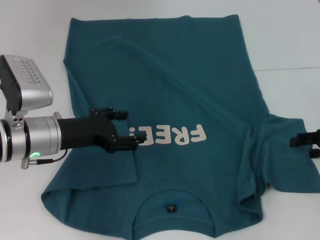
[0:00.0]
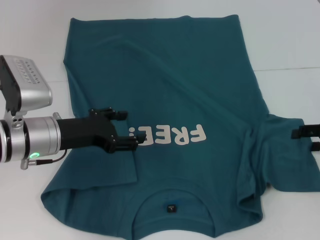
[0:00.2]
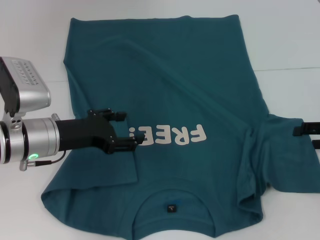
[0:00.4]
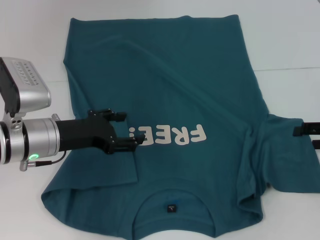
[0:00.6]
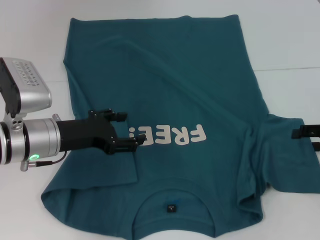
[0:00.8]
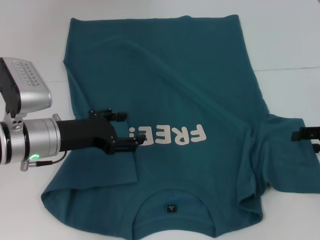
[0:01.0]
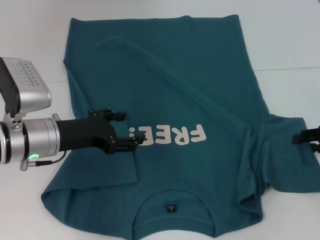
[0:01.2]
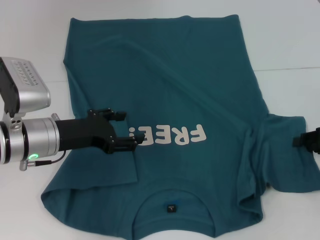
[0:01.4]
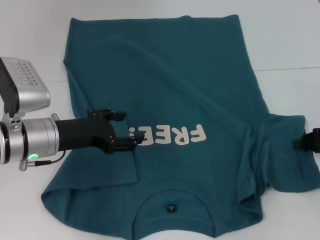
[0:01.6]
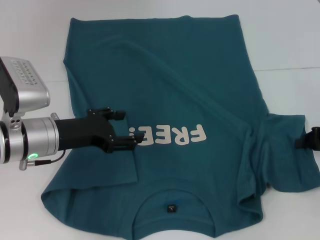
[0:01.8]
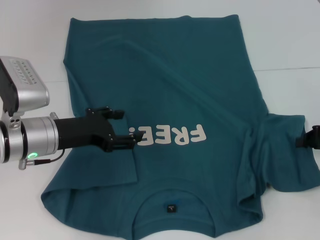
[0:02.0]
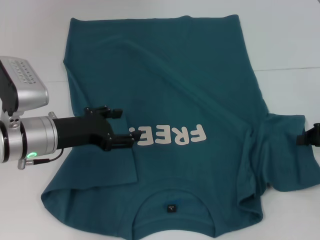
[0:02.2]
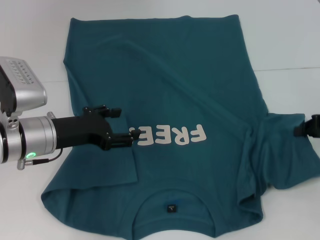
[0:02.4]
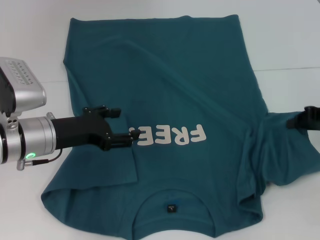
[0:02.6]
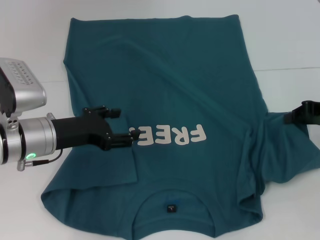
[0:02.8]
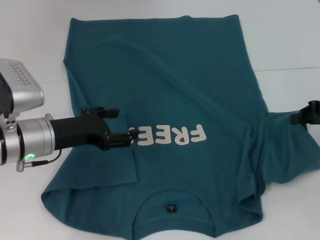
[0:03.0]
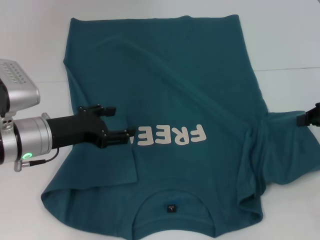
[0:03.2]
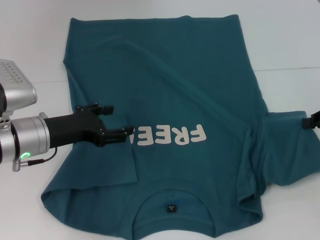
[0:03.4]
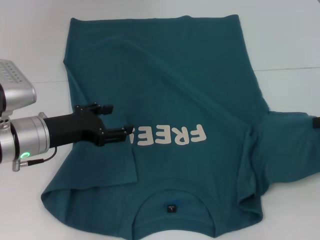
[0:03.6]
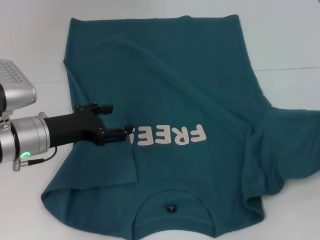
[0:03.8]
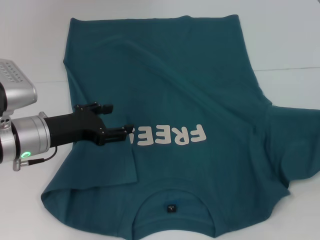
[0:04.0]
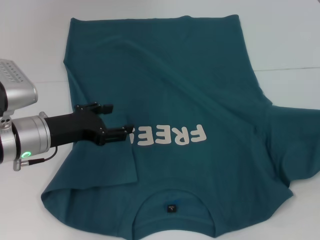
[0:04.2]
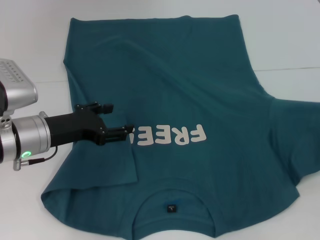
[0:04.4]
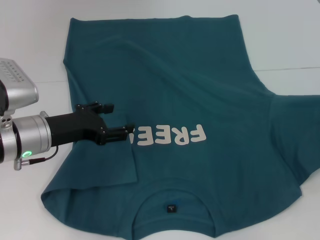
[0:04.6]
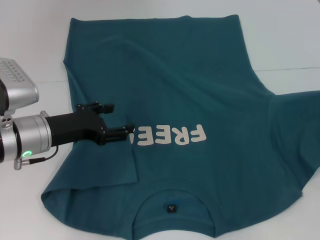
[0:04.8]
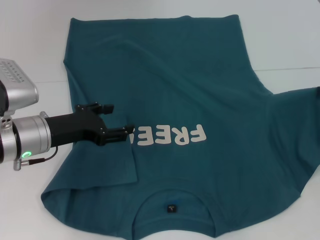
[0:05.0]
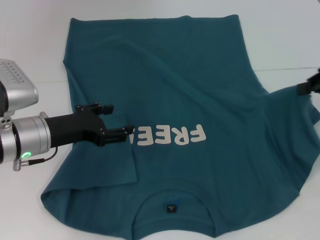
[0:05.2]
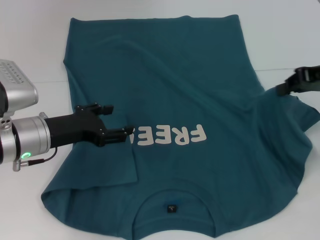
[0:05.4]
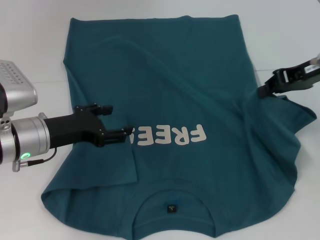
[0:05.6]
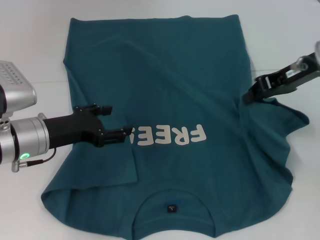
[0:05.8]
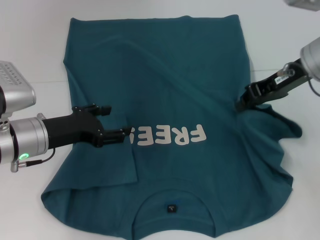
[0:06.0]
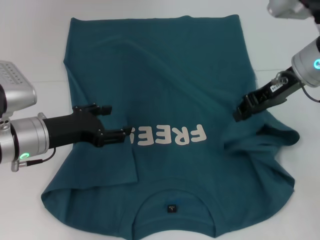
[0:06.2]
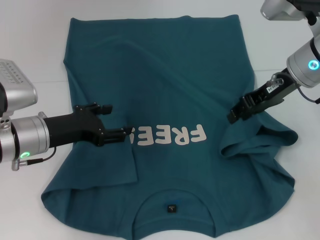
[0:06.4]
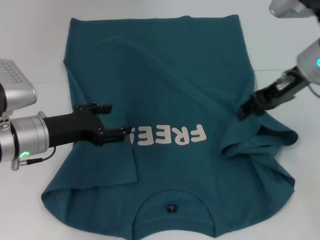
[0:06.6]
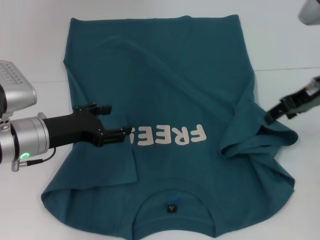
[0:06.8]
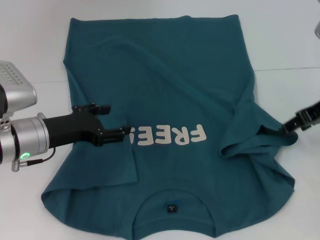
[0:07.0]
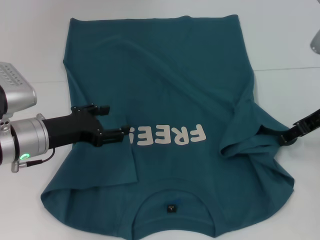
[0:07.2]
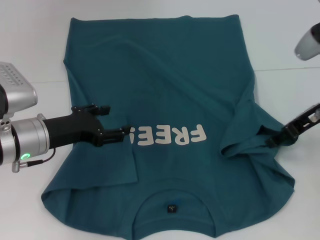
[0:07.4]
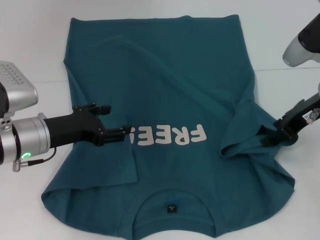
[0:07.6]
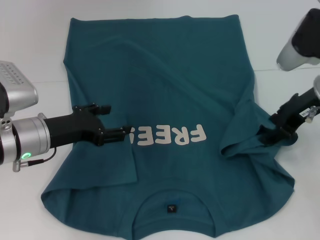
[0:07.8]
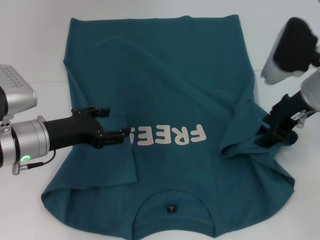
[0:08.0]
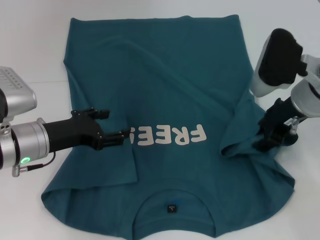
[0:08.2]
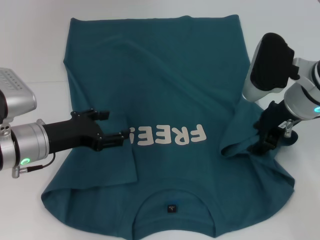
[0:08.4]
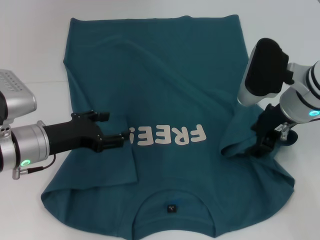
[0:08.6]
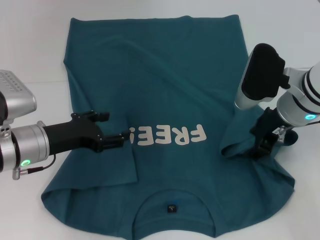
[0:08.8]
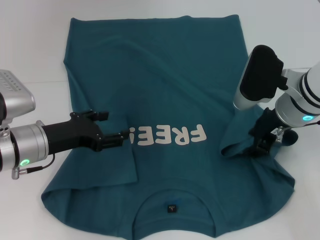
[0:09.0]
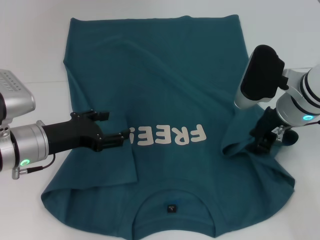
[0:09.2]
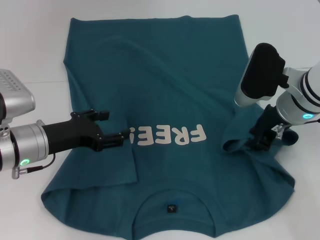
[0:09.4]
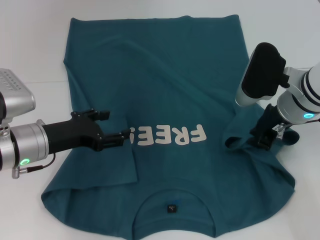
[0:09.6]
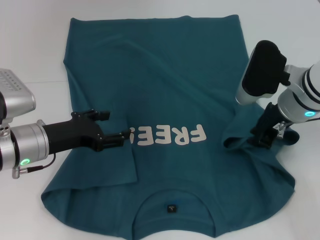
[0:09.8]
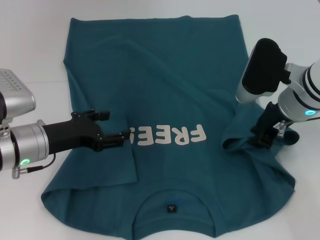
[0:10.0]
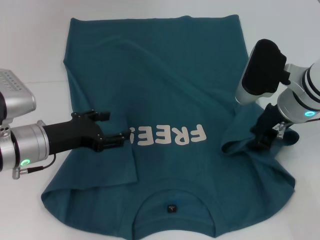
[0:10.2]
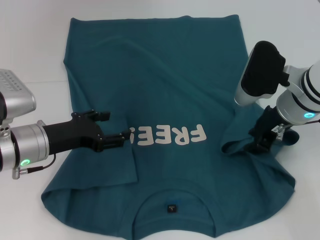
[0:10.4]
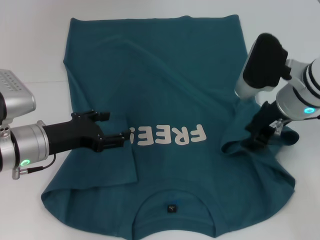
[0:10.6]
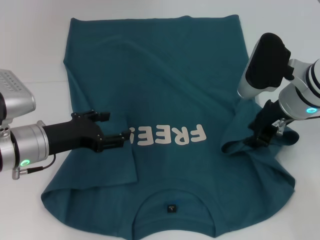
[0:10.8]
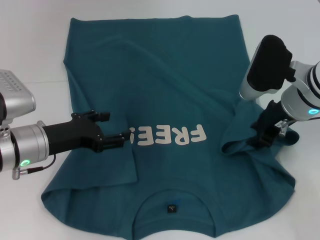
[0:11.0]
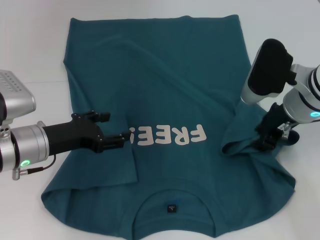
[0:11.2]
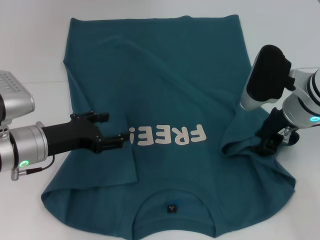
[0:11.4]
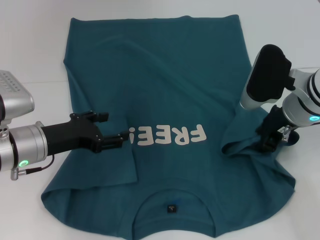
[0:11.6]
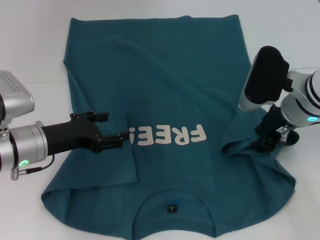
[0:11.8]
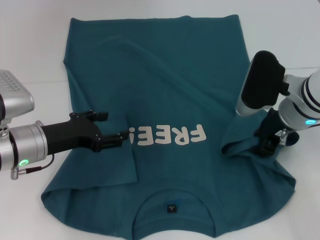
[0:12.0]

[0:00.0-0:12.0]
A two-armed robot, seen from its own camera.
0:00.0 to 0:01.6: The right gripper closes.
0:01.6 to 0:03.0: The right gripper shifts about 5 cm upward, and closes.
0:03.0 to 0:04.4: The right gripper ends up roughly 5 cm from where it was.
0:04.4 to 0:06.0: The right gripper is displaced to the left and forward by approximately 20 cm.
0:06.0 to 0:07.6: The right gripper goes to the right and returns, about 5 cm each way, and opens.
0:07.6 to 0:09.0: The right gripper heads to the left, covering about 5 cm.
0:09.0 to 0:12.0: Both grippers stay about where they are.

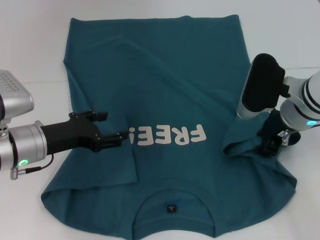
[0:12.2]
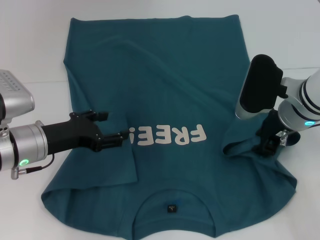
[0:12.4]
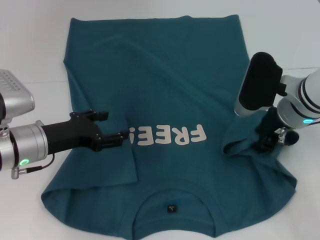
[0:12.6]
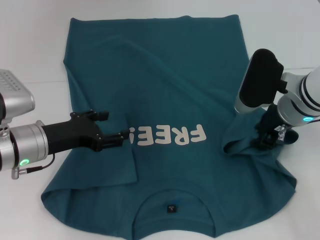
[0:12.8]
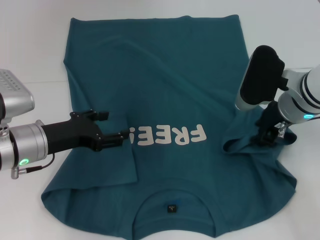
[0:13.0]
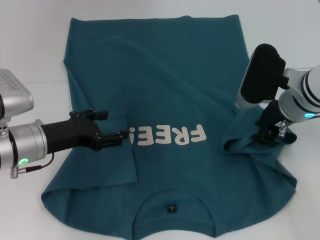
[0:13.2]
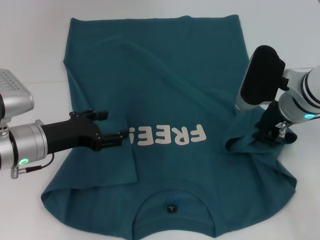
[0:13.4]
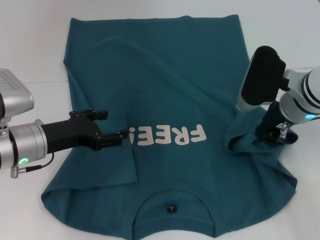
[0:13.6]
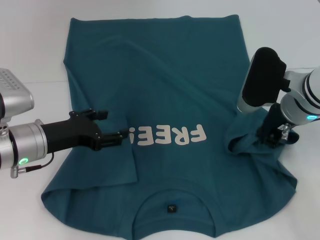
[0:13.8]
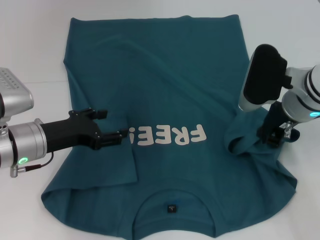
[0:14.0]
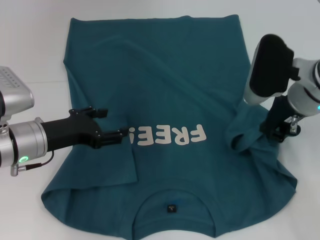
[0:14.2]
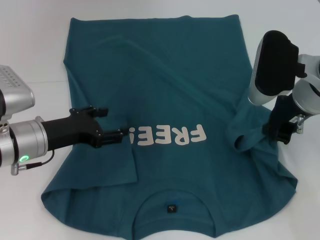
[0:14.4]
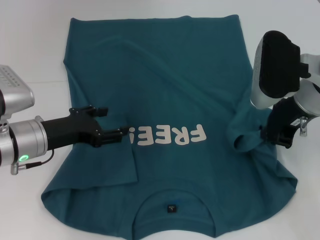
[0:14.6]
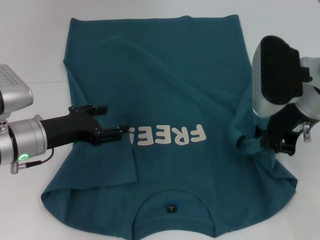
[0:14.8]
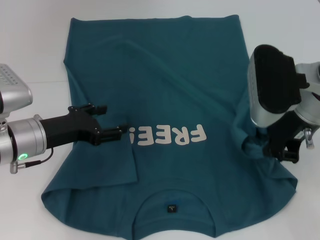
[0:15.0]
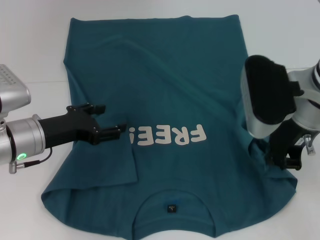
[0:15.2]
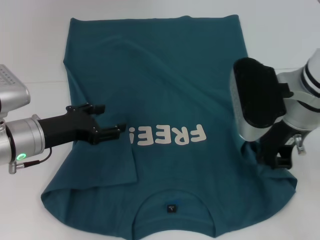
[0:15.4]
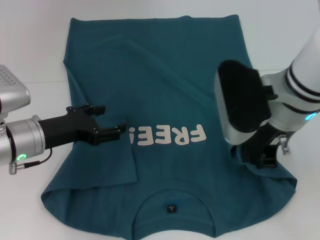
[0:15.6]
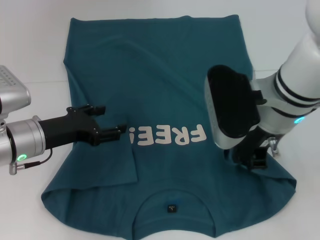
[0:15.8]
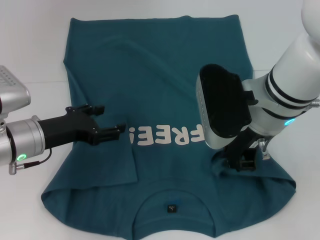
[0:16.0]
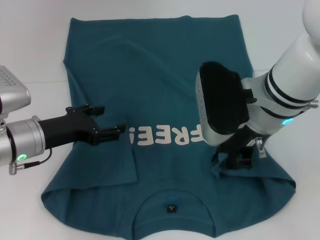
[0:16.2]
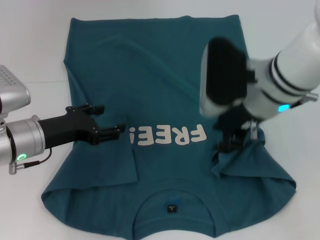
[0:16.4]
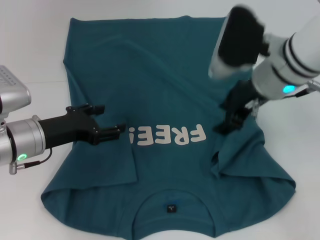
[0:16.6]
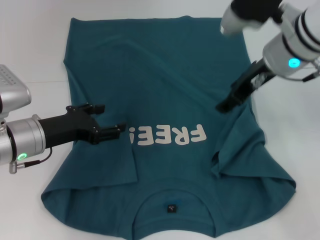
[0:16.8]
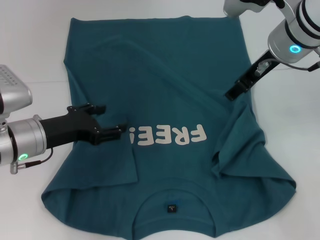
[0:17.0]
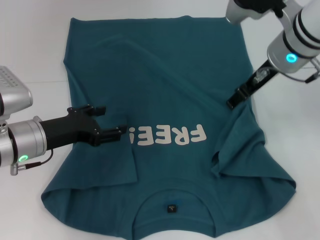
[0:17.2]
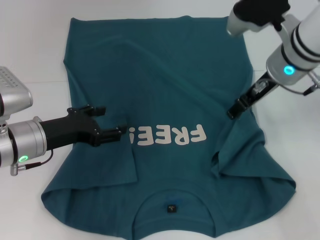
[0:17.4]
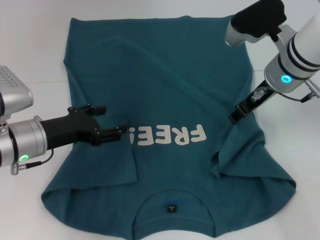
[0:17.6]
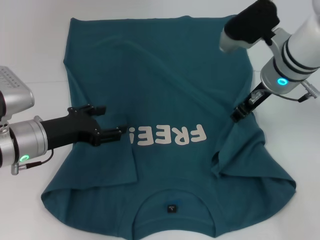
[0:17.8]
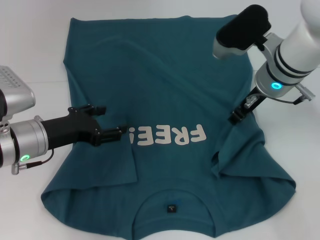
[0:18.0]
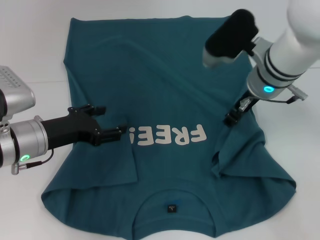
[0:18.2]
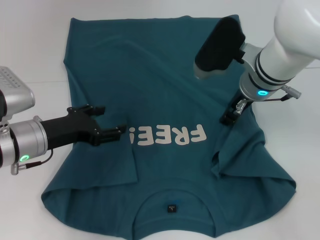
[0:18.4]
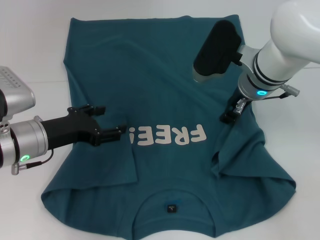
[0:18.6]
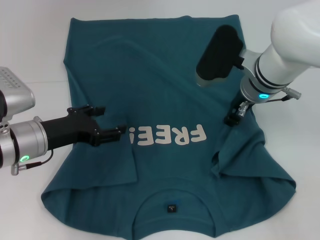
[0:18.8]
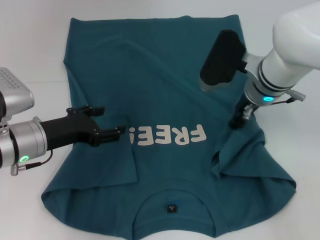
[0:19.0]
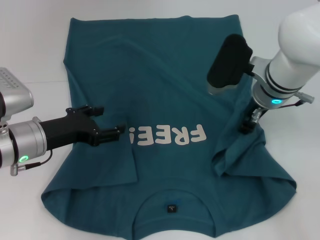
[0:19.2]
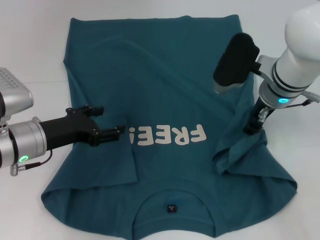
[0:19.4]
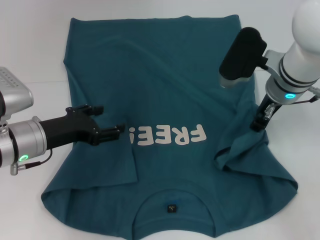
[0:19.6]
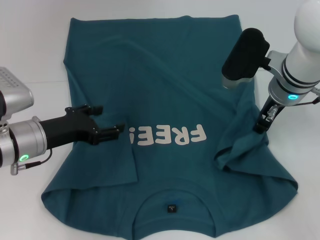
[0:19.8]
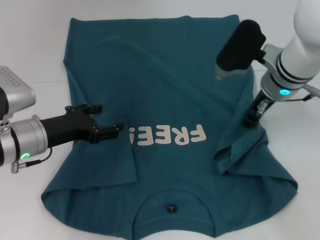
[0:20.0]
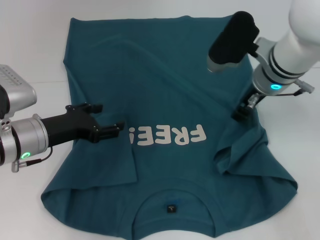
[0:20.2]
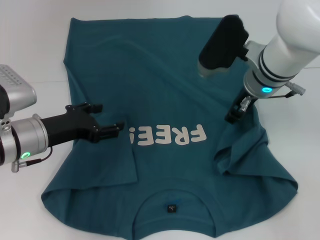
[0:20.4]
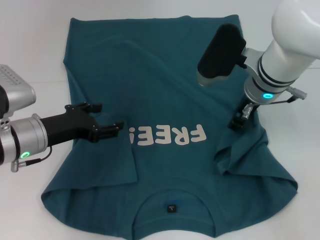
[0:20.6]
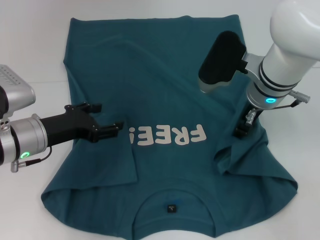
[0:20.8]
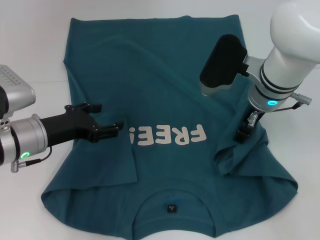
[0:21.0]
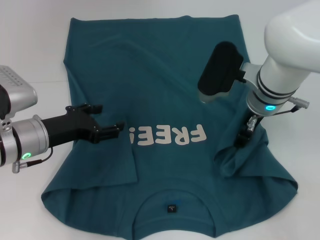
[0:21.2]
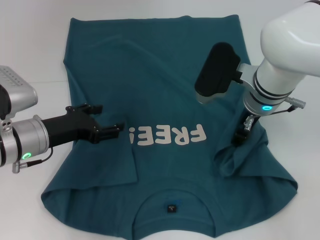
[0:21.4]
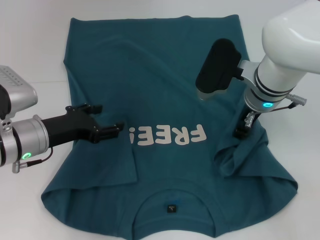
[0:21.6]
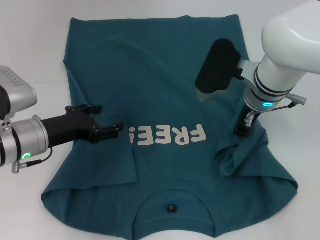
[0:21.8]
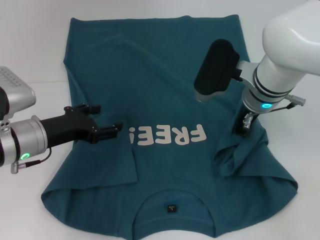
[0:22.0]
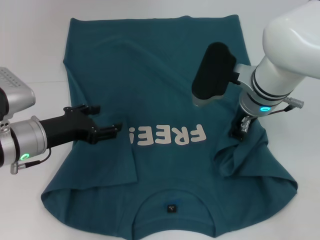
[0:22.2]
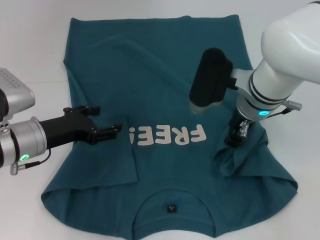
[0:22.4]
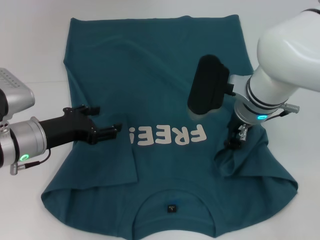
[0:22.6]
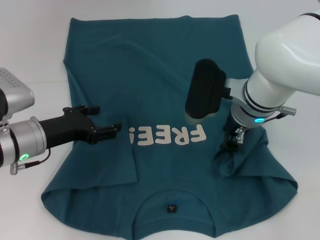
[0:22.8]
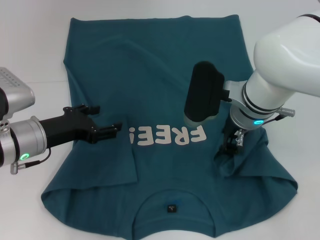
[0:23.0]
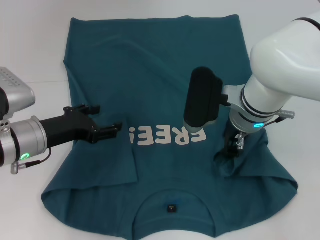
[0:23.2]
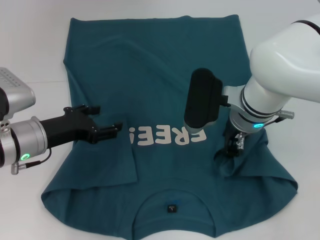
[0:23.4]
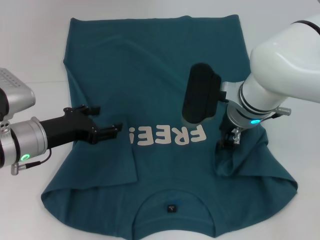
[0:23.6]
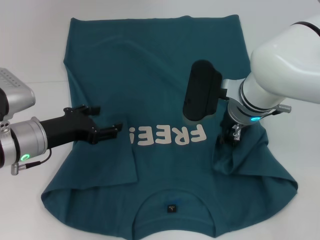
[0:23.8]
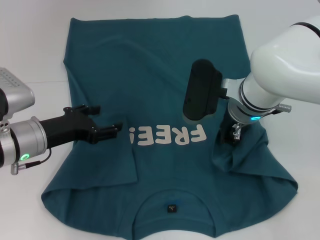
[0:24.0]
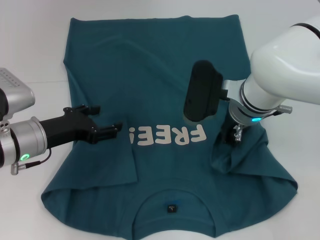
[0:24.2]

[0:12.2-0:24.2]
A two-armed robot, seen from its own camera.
0:12.2 to 0:13.8: The right gripper closes.
0:13.8 to 0:15.2: The right gripper shifts roughly 5 cm upward.
0:15.2 to 0:16.6: The right gripper opens.
0:16.6 to 0:18.2: The right gripper shifts by some 5 cm, and opens, then closes again.
0:18.2 to 0:21.2: There are only small adjustments of the grippers.
0:21.2 to 0:22.6: The grippers stay close to where they were, moving slightly.
0:22.6 to 0:24.2: The right gripper closes its fingers.
